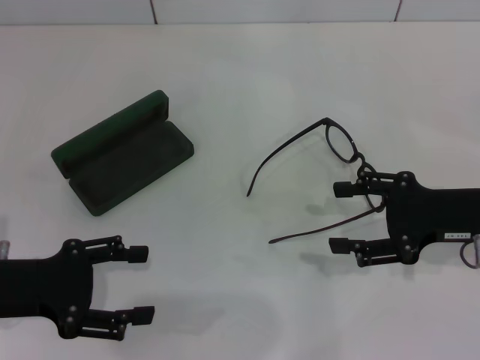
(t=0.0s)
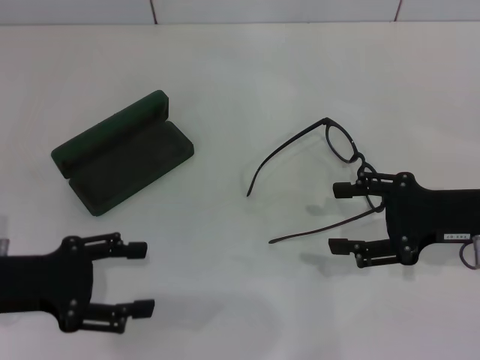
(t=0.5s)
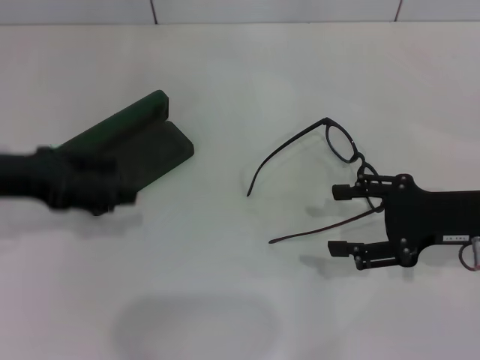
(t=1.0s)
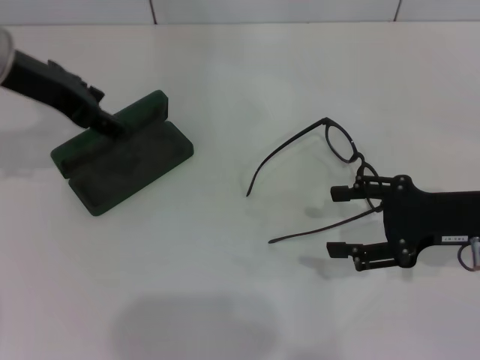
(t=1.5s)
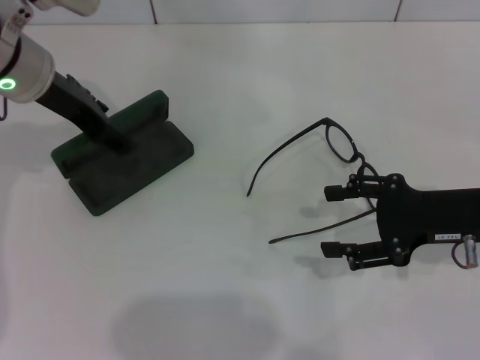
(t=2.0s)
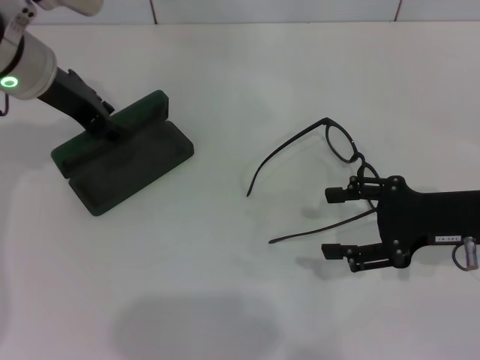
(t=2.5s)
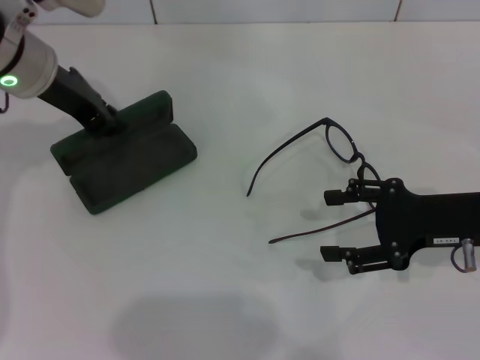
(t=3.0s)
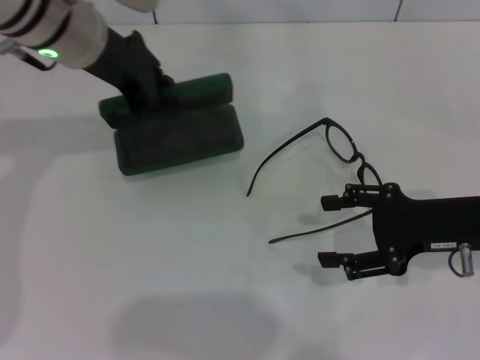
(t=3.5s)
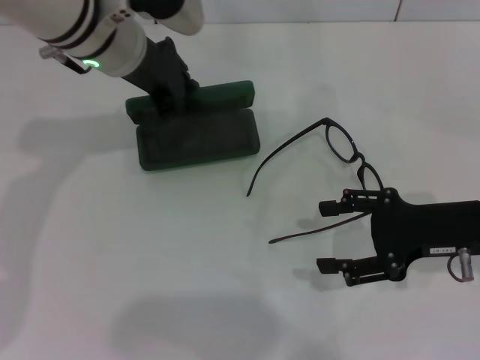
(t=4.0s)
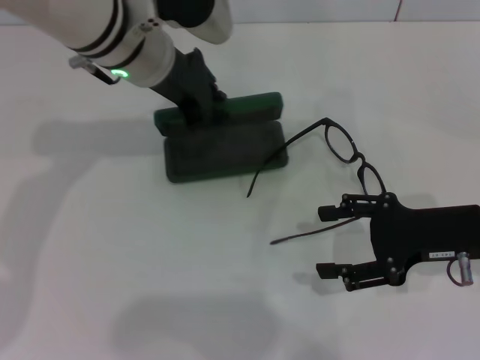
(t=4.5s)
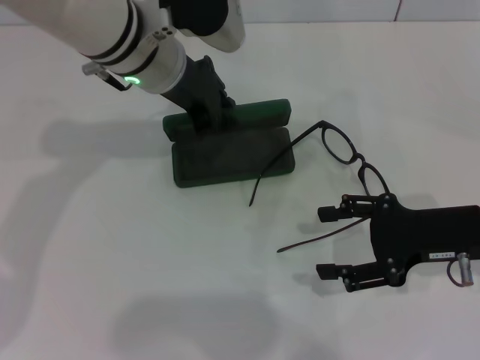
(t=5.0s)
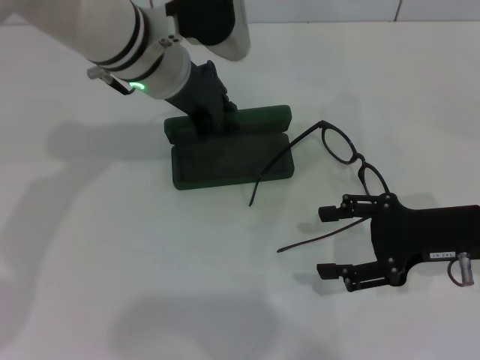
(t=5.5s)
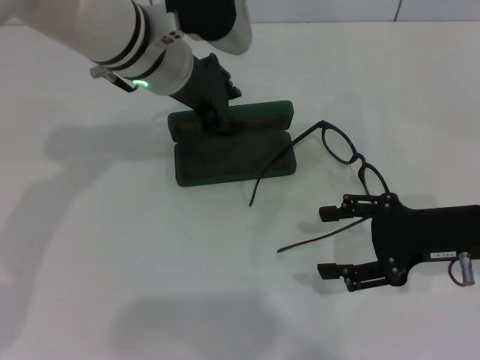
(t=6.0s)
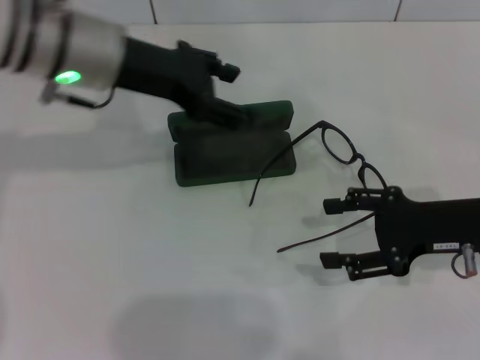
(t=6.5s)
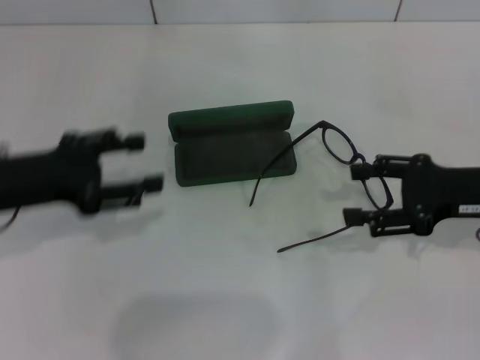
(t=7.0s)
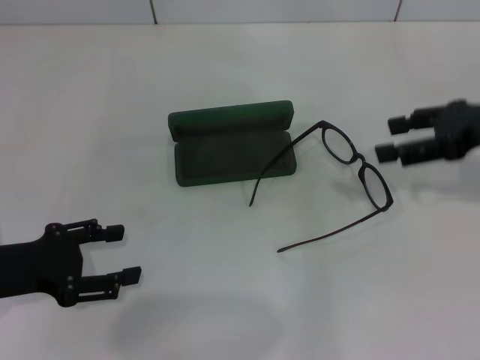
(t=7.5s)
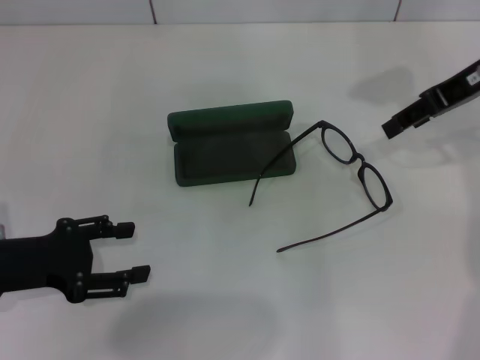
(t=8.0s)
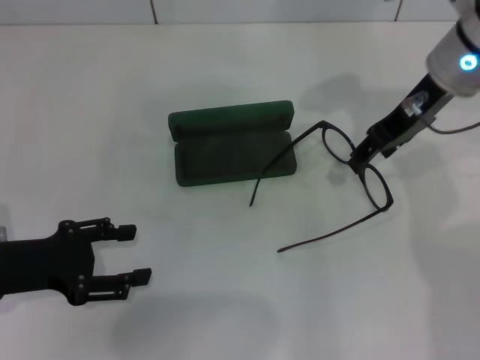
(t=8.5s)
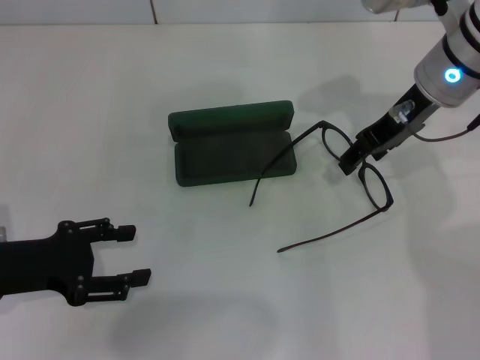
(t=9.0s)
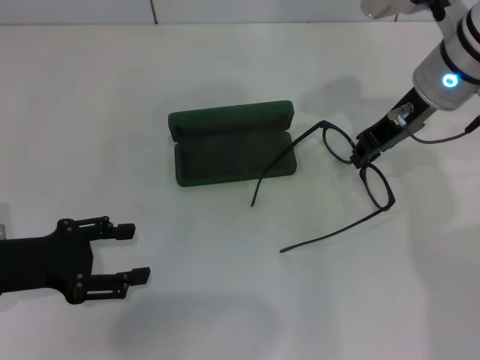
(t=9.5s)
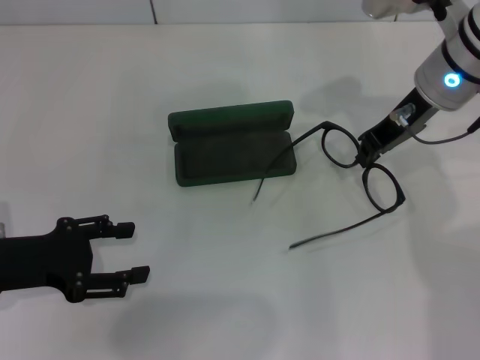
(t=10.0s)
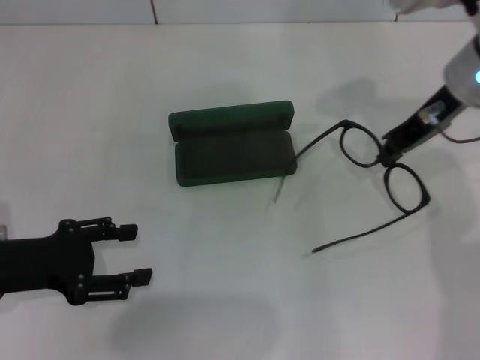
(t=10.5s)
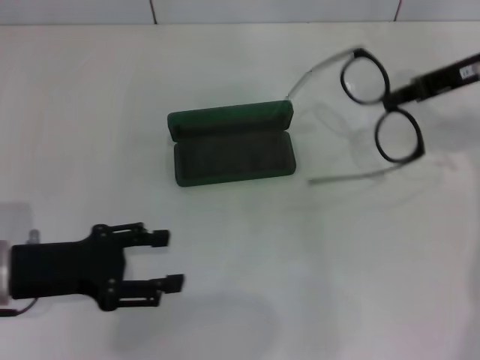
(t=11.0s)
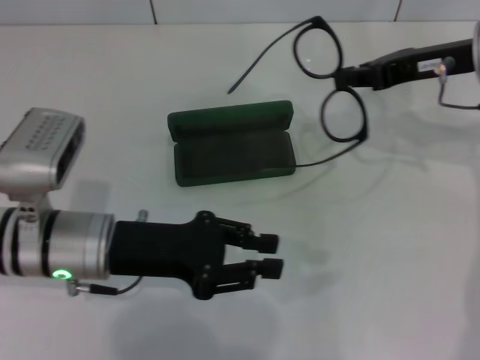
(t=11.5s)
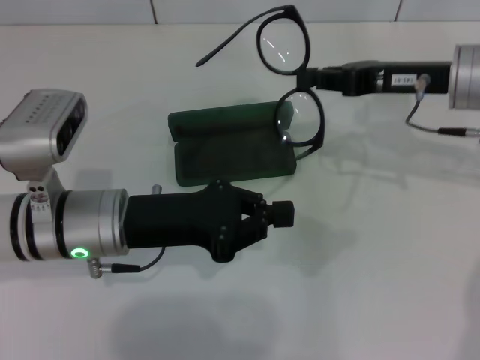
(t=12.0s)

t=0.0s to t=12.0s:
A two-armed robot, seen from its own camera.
Step, t=0.0s to t=2.5s: Grab the glasses case with your left hand.
Step, t=3.0s to t=6.0s: Place the glasses case in the center of the table with your left hand.
Step, t=6.5s to t=9.5s: Grab the eyeglass frame with your right hand.
t=0.0s to t=2.0s: The left gripper heads forward, upward and to the right, covering roughly 20 cm.
t=2.0s to t=4.0s: The left gripper moves to the right, some 10 cm, and closes its fingers.
t=4.0s to t=6.0s: The grippers move only a little.
t=6.0s to t=8.0s: The left gripper heads to the left, backward and downward, covering approximately 30 cm, and opens up, while the right gripper is displaced upward and forward by roughly 20 cm.
t=8.0s to t=10.0s: The right gripper goes some 10 cm to the left, and closes up.
t=10.0s to t=12.0s: The left gripper moves to the right, roughly 15 cm, and closes.

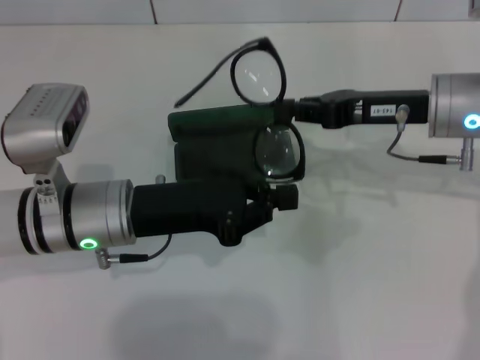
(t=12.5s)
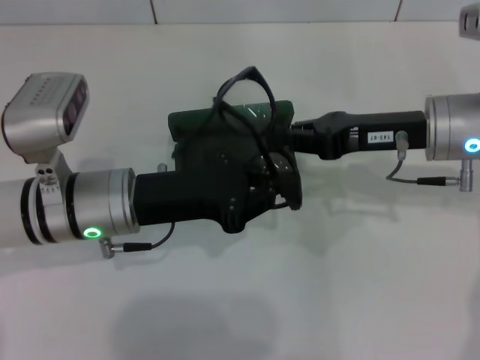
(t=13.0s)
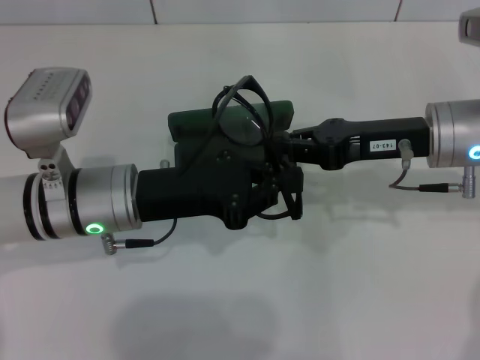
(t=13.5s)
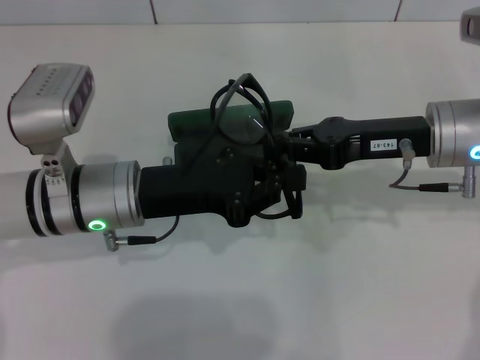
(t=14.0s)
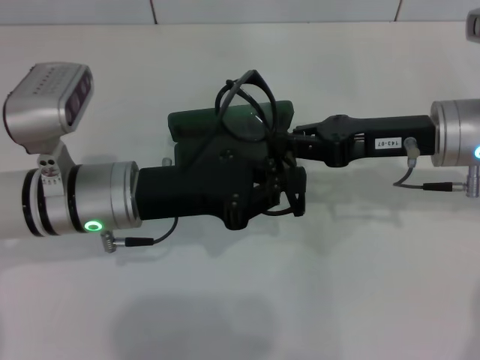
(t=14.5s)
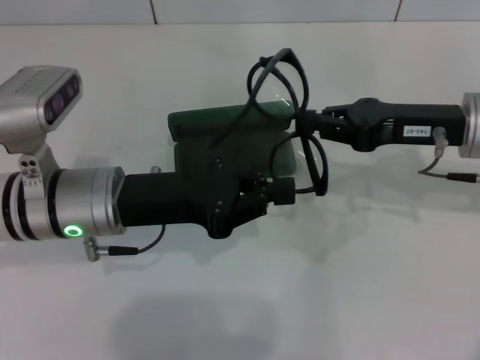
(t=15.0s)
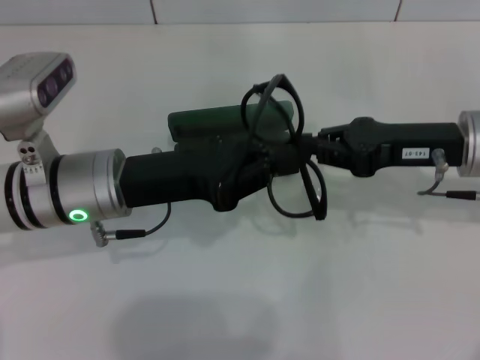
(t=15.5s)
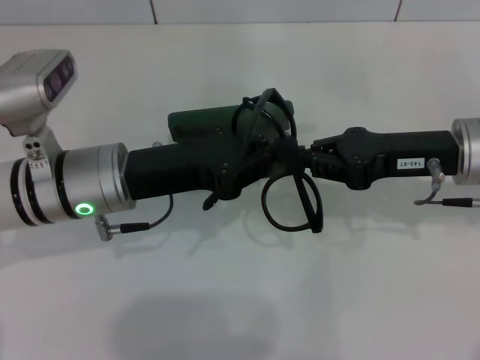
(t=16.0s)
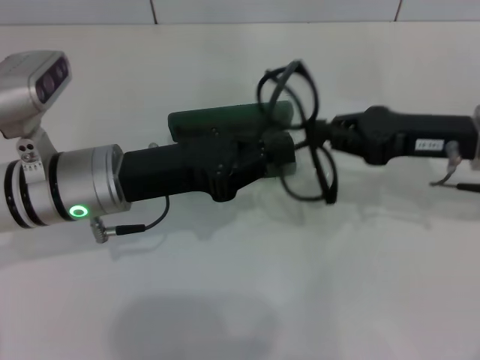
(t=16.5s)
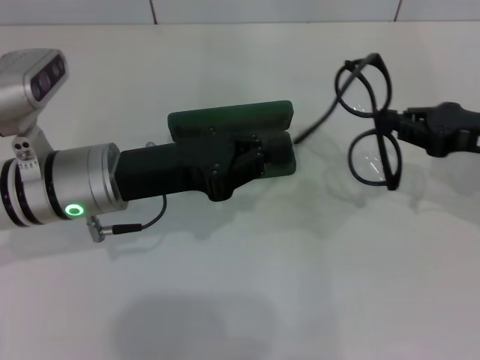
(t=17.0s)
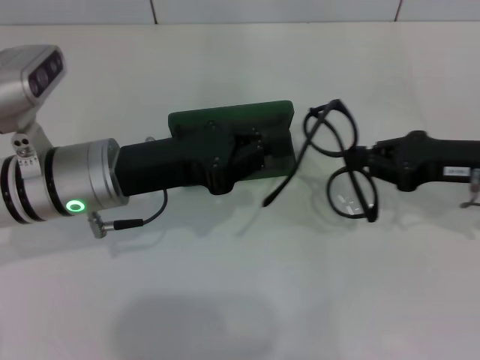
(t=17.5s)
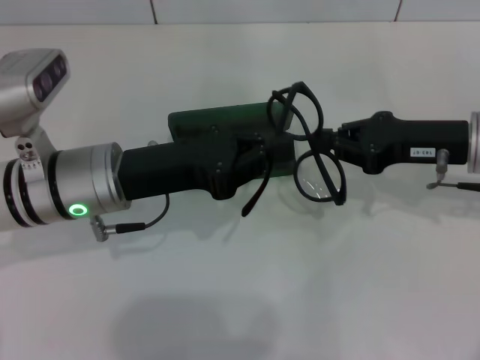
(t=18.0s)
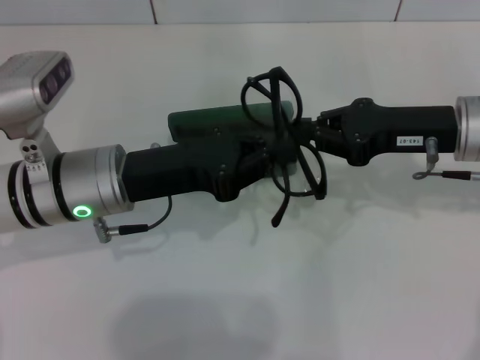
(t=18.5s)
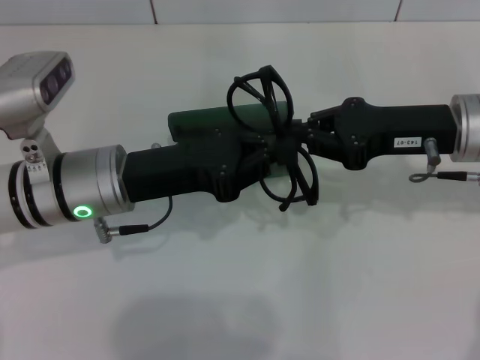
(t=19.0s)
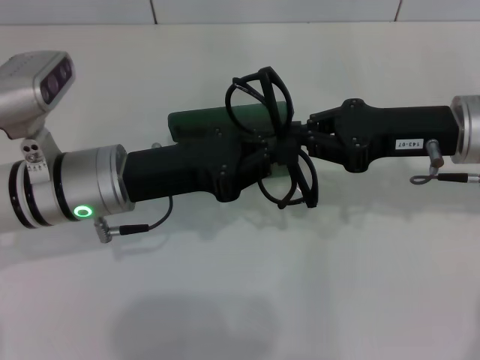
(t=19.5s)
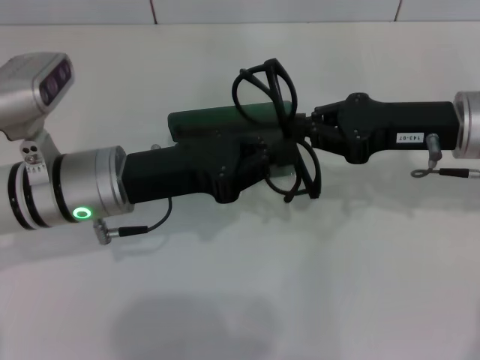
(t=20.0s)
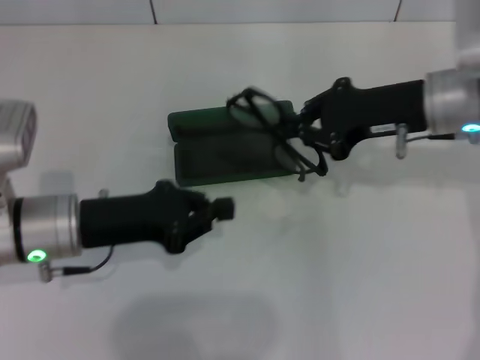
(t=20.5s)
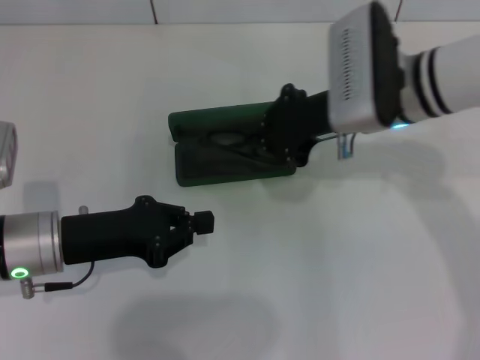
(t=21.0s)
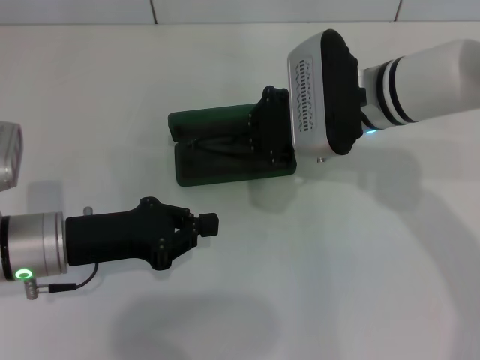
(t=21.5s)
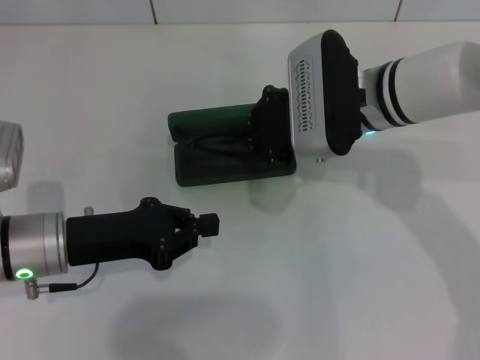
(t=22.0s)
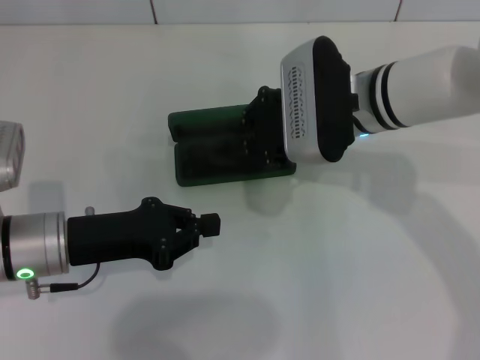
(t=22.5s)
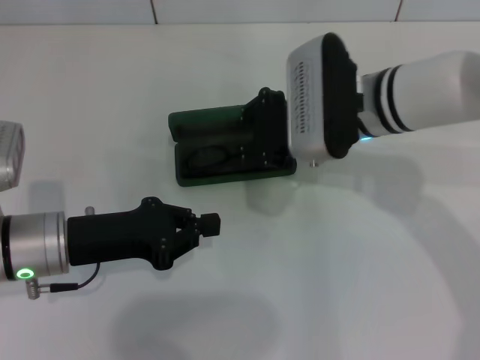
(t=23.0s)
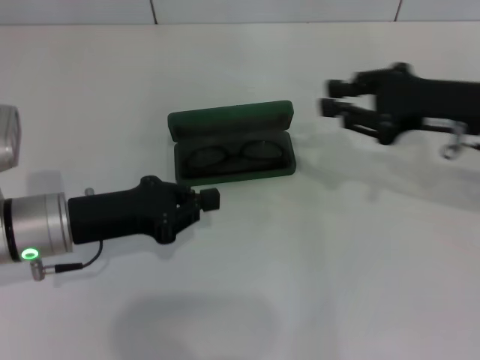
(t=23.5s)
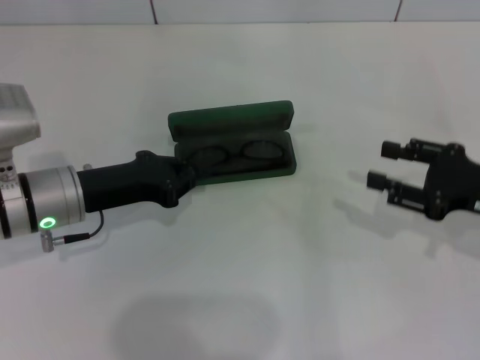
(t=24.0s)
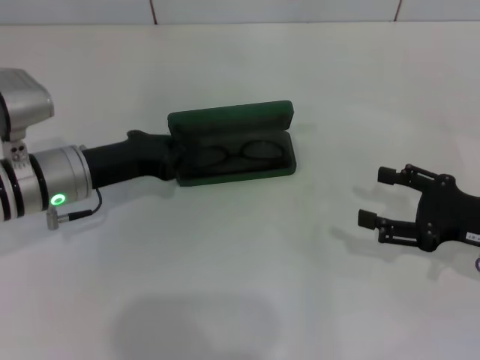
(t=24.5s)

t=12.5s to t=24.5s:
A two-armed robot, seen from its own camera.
Step, t=12.5s to t=19.0s: Fold the frame with your left hand.
Step, t=19.5s to t=23.0s: Put the glasses into the case with your right hand.
t=16.5s to t=18.5s: The right gripper reaches approximately 5 cm to the right, then returns.
t=18.5s to t=20.5s: The left gripper changes place by some 5 cm.
t=20.5s to t=22.5s: The right gripper travels to the left by some 10 cm.
t=22.5s to t=24.5s: The left gripper is displaced forward by some 5 cm. The right gripper is displaced to the right and backward by approximately 25 cm, and opens up.

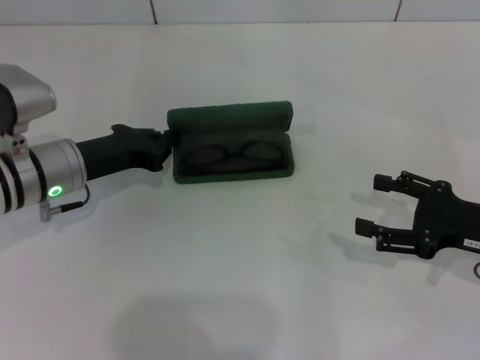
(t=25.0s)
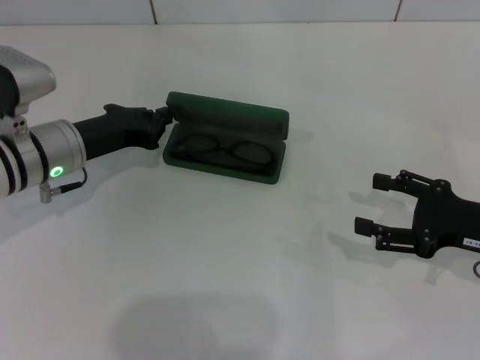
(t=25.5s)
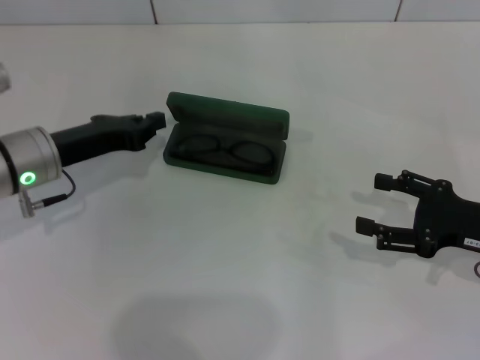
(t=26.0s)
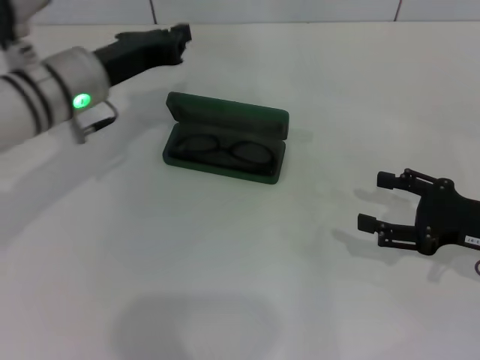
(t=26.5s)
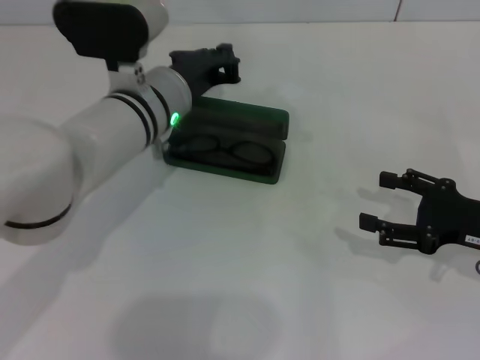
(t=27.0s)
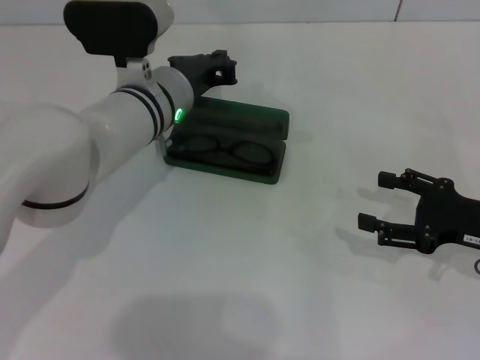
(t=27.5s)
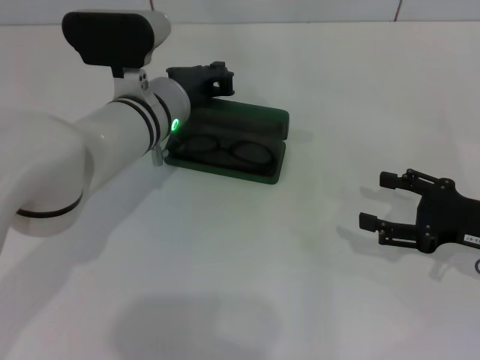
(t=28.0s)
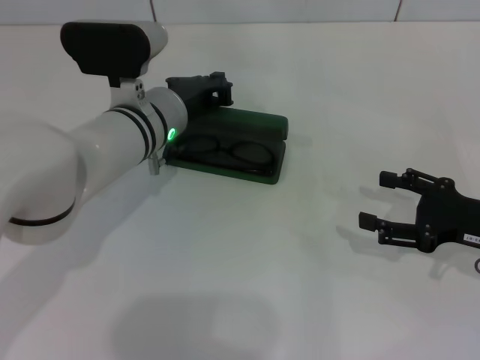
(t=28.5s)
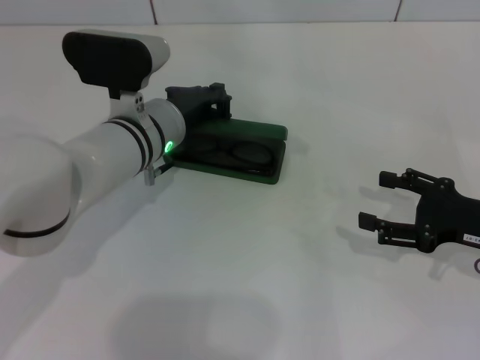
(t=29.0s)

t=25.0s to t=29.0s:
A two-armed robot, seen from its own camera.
t=25.0s to t=27.0s: The left gripper travels to the right by approximately 10 cm.
t=27.0s to t=29.0s: The grippers move only a little.
